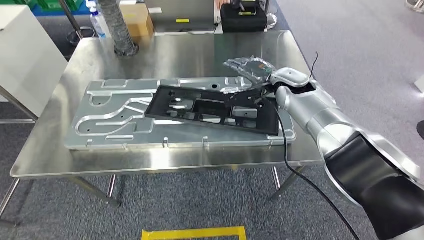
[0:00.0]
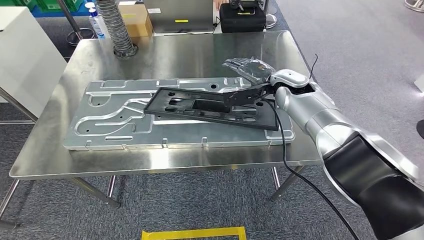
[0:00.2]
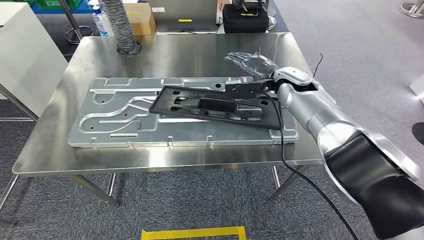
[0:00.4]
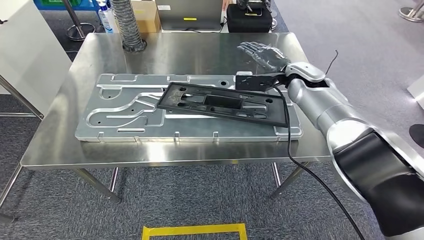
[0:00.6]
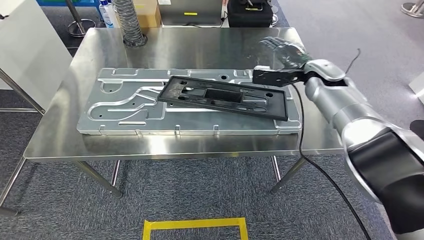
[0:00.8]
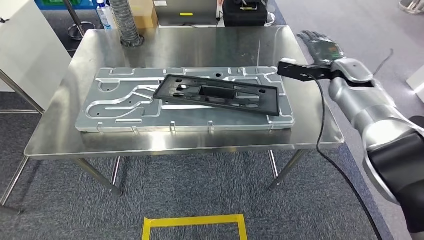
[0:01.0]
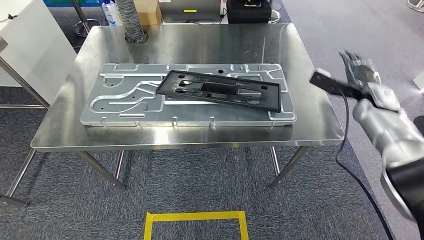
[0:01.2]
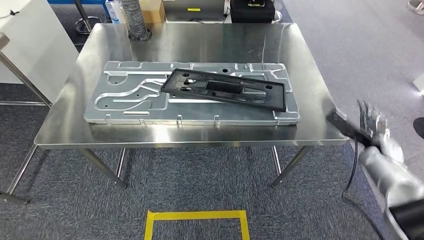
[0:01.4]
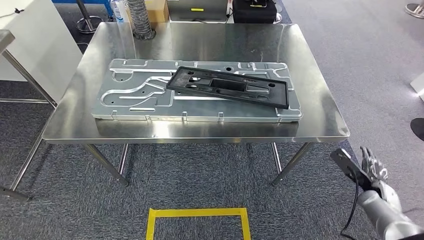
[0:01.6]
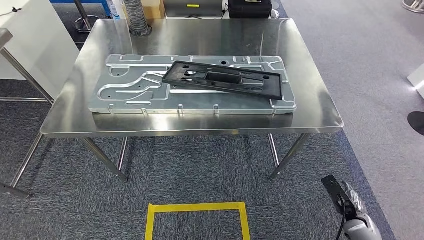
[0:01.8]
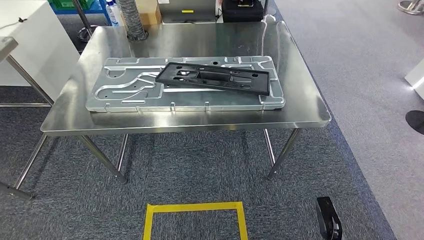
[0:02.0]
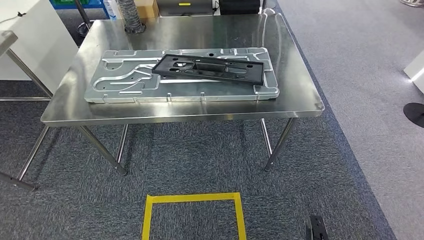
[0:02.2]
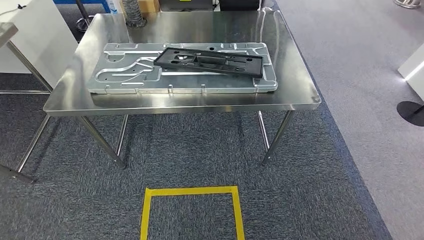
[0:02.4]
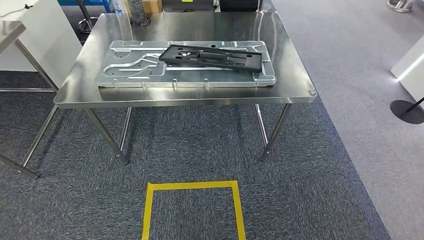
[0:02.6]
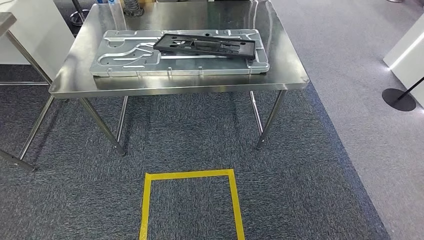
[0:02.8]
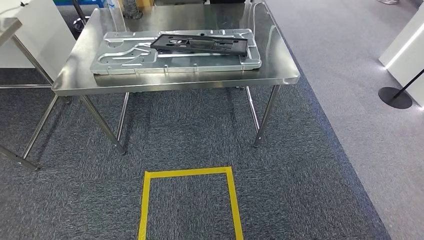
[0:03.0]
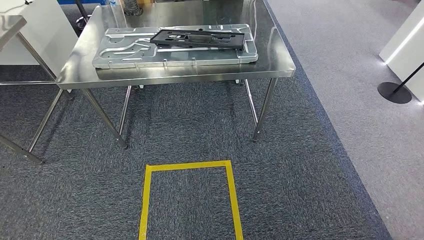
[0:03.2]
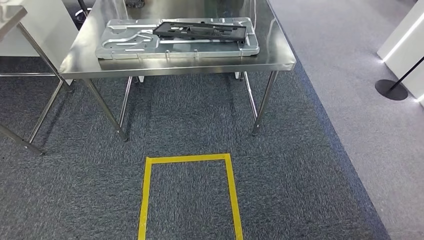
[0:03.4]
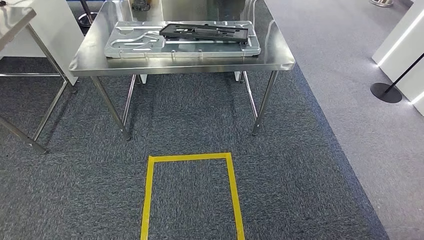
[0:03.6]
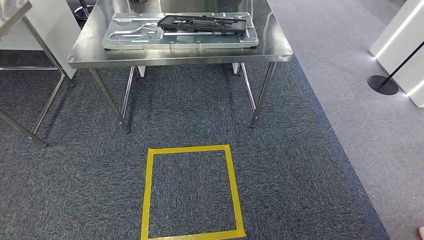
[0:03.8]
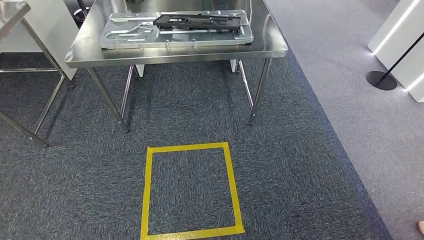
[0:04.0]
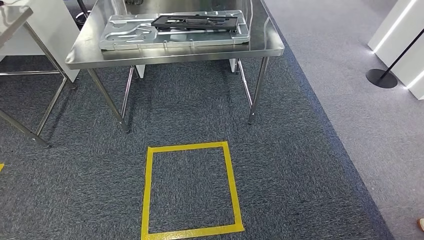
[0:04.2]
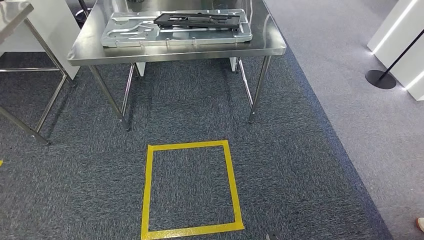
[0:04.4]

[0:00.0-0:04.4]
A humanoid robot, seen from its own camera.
Step, 0:01.6 to 0:04.4: Move to the initial position of the shelf.
